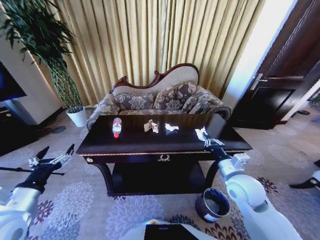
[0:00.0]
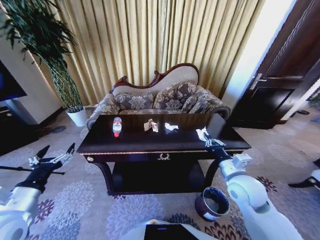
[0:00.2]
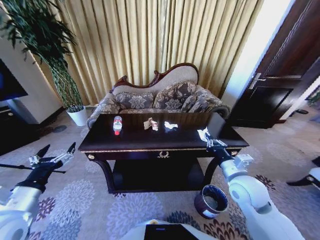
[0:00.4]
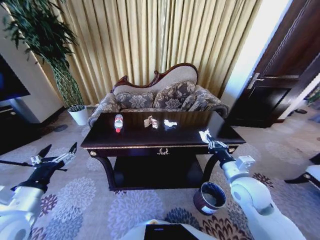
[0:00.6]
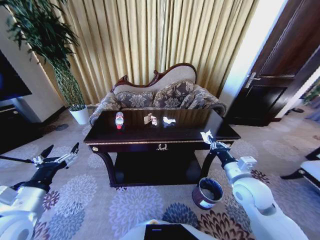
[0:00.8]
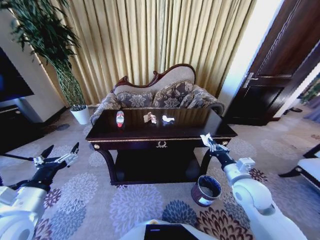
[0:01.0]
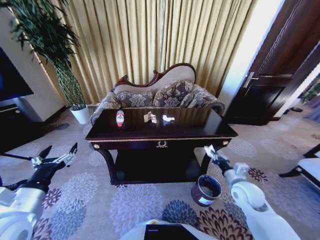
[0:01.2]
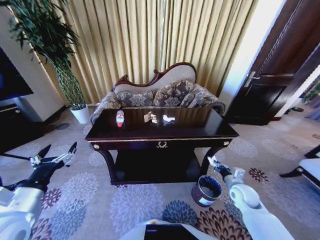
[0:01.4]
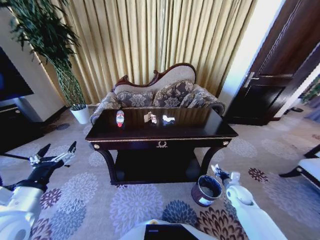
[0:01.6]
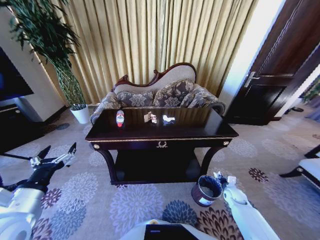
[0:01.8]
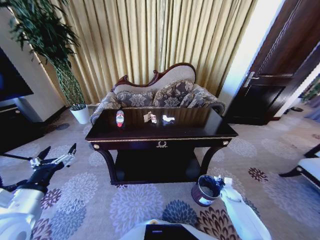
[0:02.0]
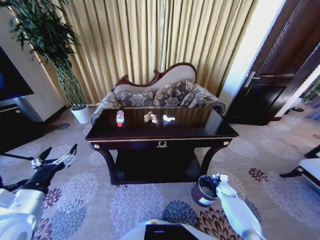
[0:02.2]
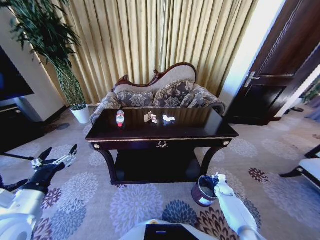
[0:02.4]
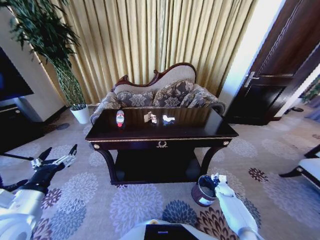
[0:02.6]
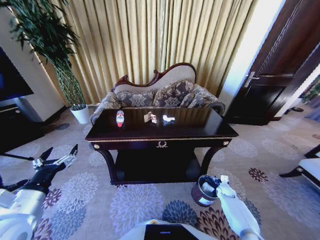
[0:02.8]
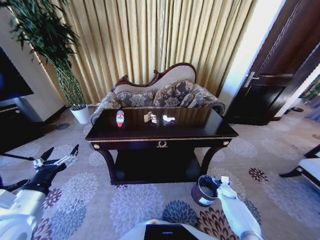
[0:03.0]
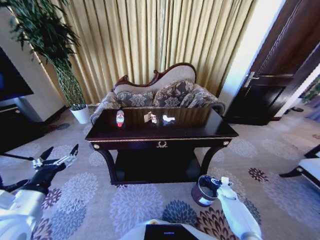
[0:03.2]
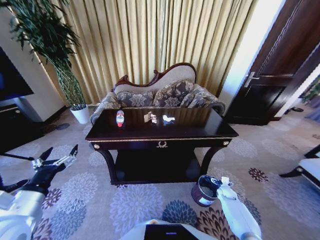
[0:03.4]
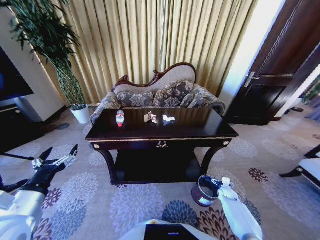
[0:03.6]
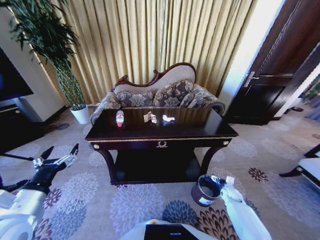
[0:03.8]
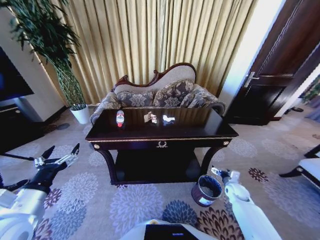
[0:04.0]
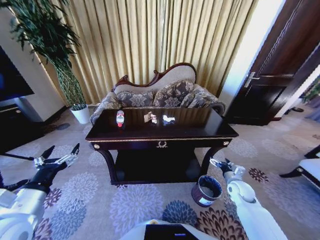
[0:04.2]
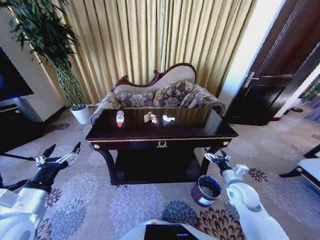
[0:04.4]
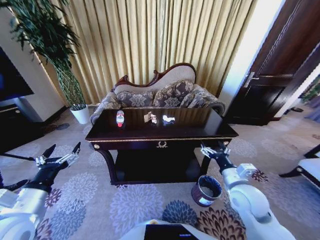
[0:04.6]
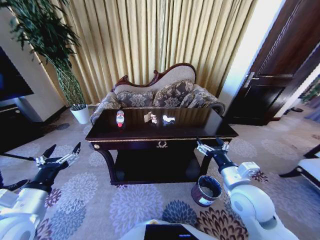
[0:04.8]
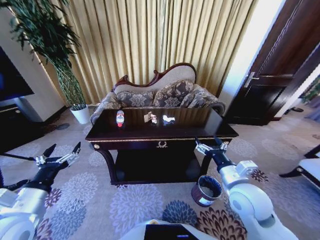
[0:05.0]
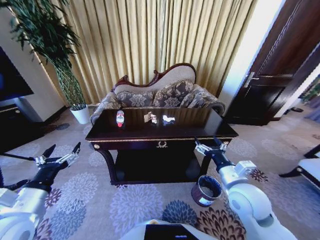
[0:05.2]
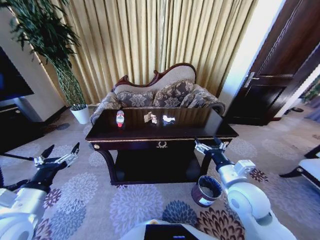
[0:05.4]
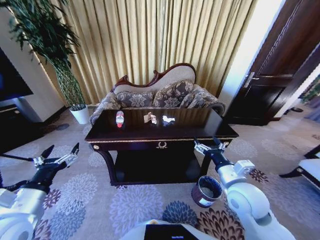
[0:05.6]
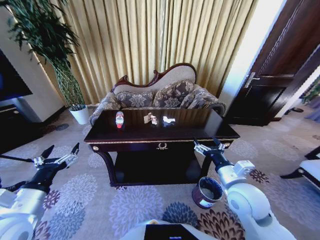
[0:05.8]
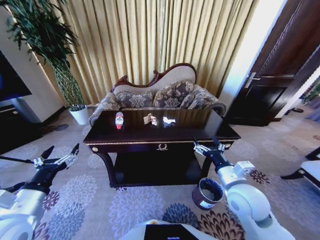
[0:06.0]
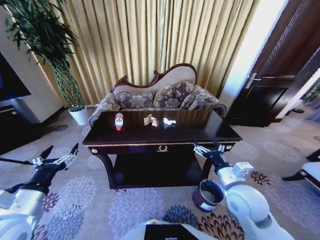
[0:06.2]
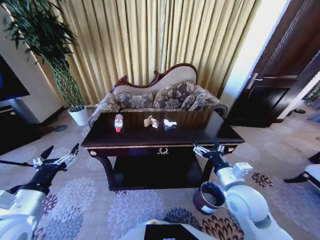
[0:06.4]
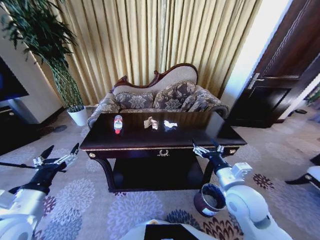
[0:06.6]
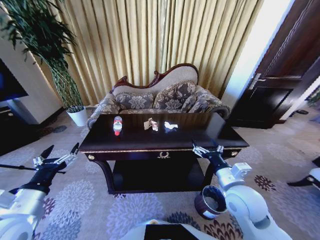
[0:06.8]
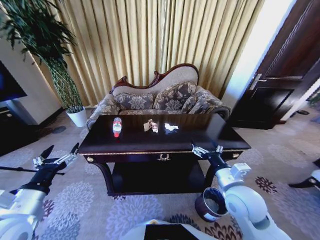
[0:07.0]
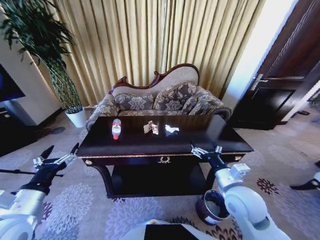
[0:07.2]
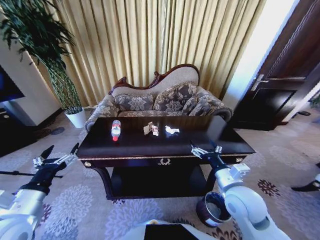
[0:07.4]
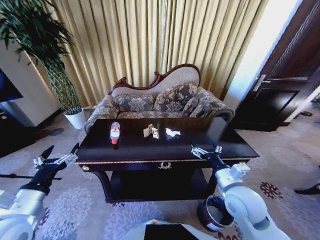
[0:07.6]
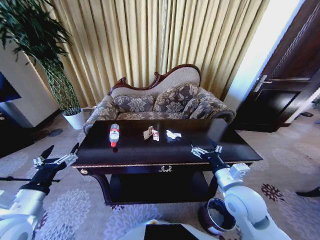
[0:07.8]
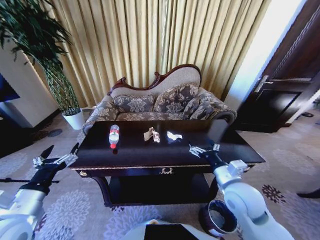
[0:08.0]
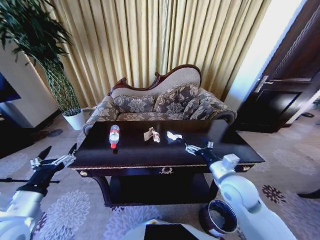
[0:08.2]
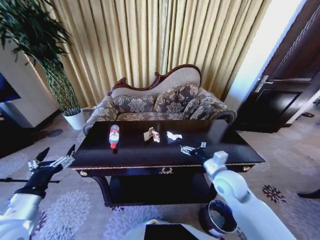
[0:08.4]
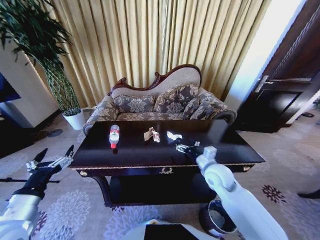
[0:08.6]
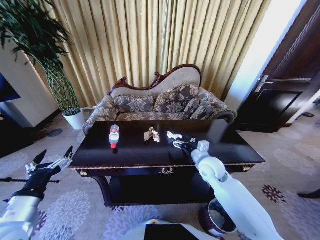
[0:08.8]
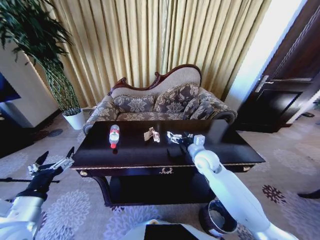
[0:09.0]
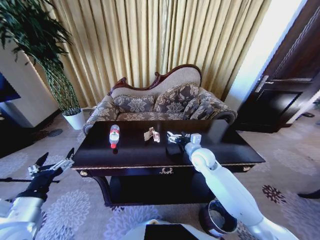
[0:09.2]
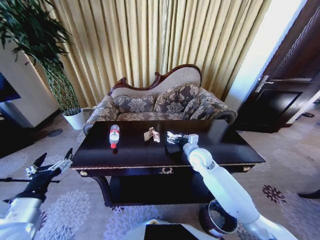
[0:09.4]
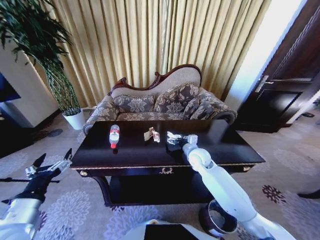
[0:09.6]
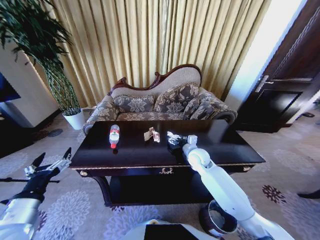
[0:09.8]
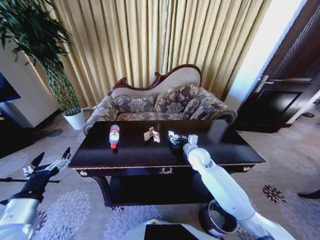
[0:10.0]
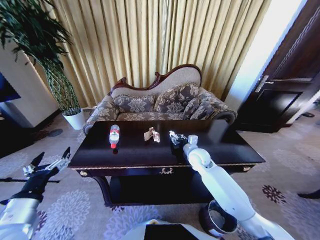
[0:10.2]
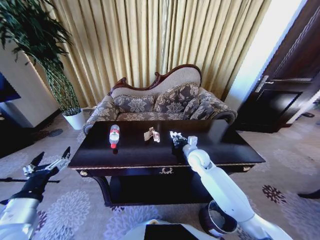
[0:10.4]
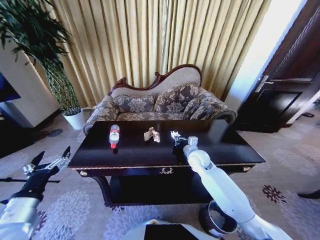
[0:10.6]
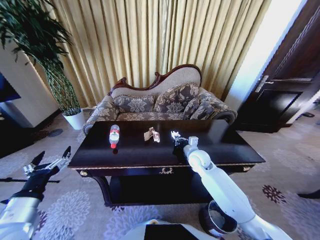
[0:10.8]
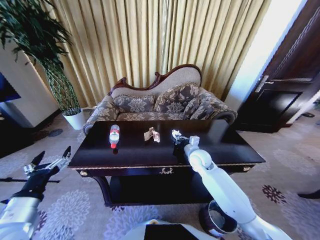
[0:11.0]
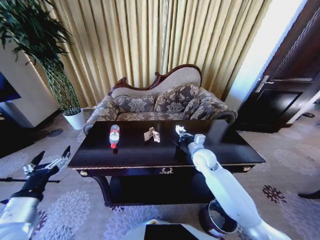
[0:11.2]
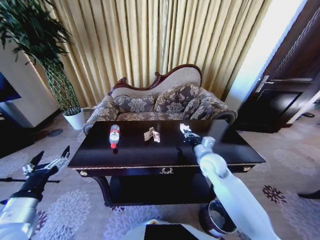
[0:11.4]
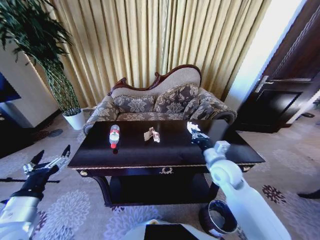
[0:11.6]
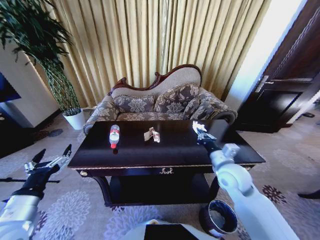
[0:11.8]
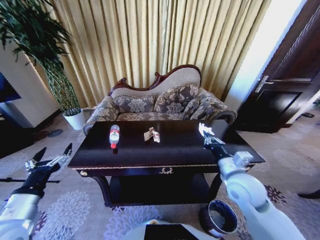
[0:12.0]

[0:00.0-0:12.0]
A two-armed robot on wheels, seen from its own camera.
Task of the whole recording: Move to the front of the table and place the trash on the table into the trash bin.
0:00.0 to 0:01.6: The right gripper shifts some 25 cm downward and to the right.
0:01.6 to 0:03.0: The right gripper moves downward, approximately 10 cm, and opens.
0:03.0 to 0:04.4: The right gripper heads upward and to the left, covering roughly 25 cm.
0:04.4 to 0:06.0: The right gripper moves upward and to the left, some 15 cm.
0:07.6 to 0:09.0: The right gripper is displaced forward by approximately 15 cm.
0:09.0 to 0:10.4: The right gripper moves about 5 cm, and closes its fingers.
0:10.4 to 0:12.0: The right gripper travels backward, upward and to the right by roughly 20 cm.

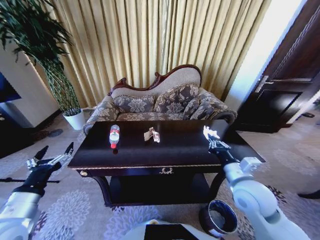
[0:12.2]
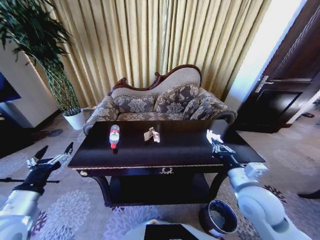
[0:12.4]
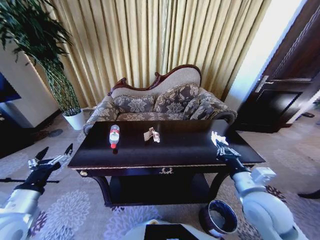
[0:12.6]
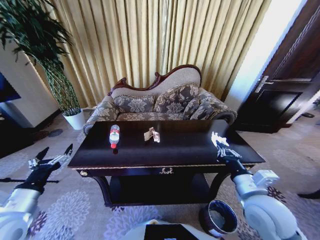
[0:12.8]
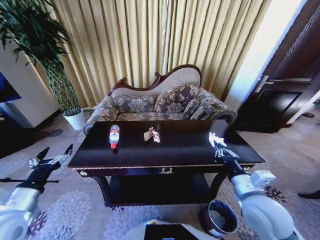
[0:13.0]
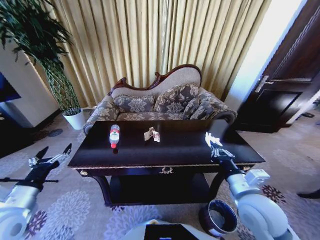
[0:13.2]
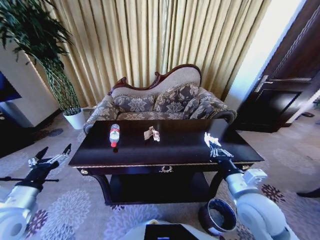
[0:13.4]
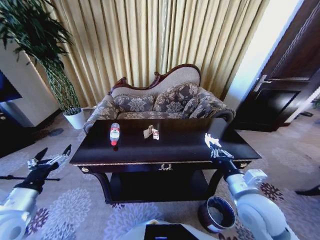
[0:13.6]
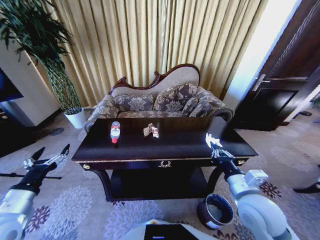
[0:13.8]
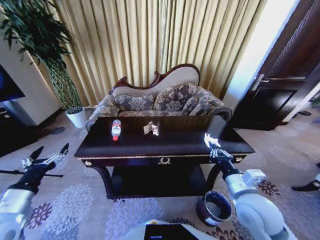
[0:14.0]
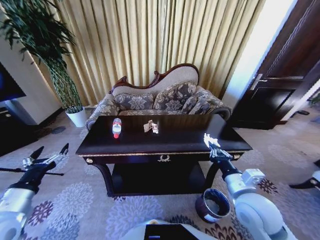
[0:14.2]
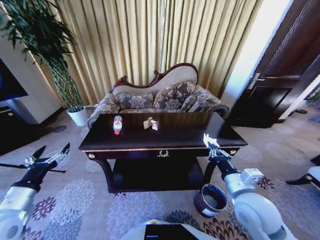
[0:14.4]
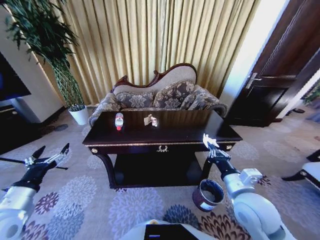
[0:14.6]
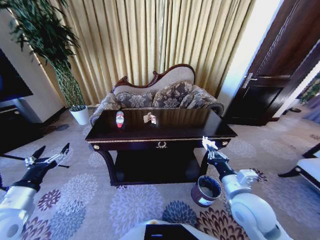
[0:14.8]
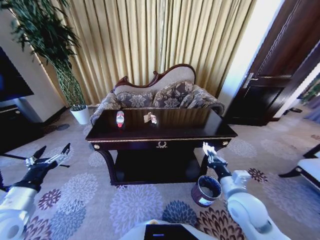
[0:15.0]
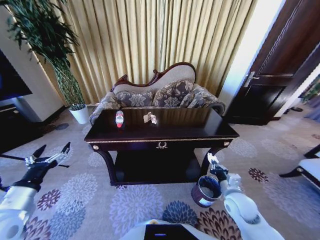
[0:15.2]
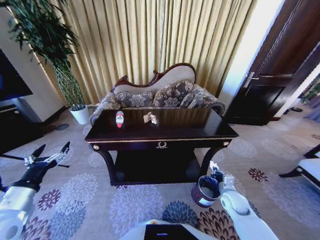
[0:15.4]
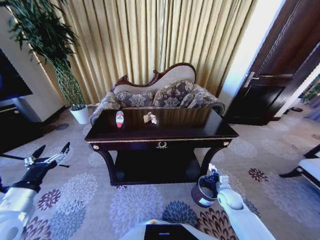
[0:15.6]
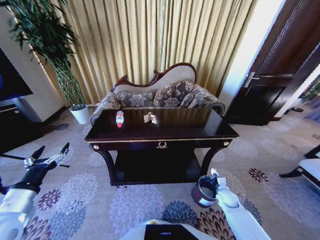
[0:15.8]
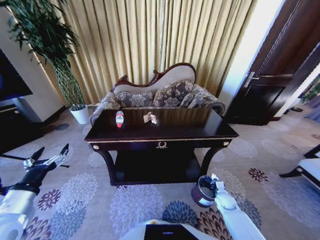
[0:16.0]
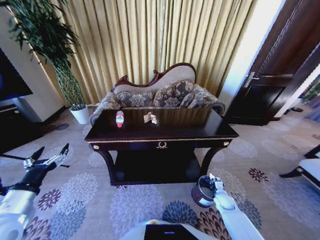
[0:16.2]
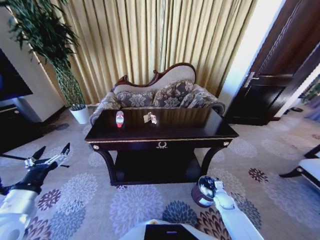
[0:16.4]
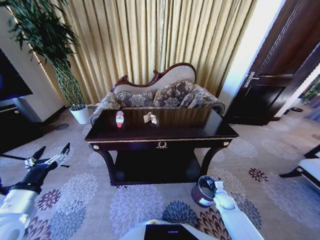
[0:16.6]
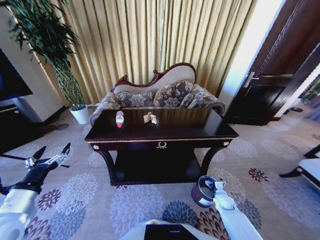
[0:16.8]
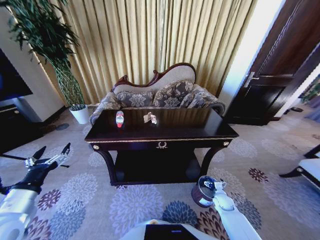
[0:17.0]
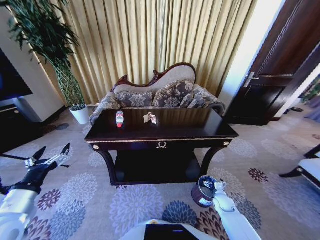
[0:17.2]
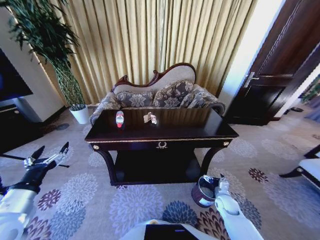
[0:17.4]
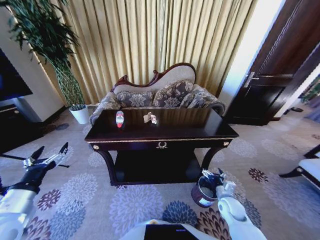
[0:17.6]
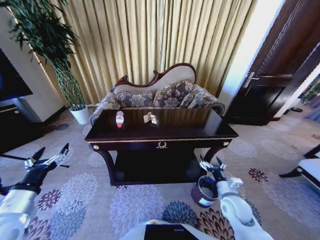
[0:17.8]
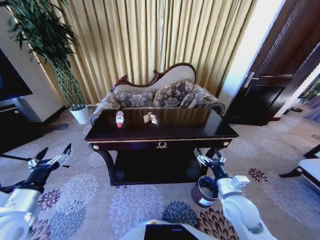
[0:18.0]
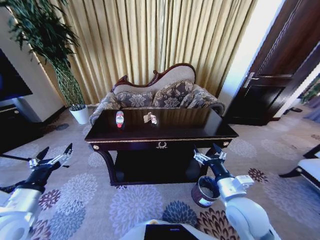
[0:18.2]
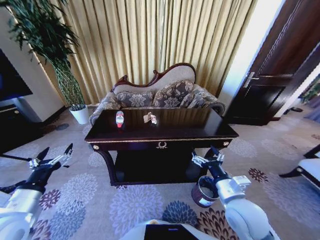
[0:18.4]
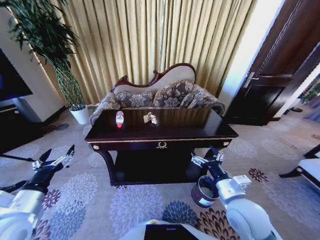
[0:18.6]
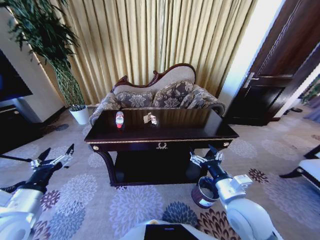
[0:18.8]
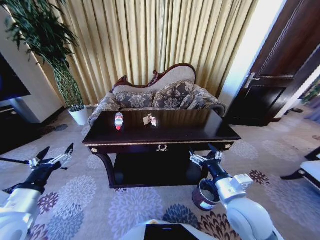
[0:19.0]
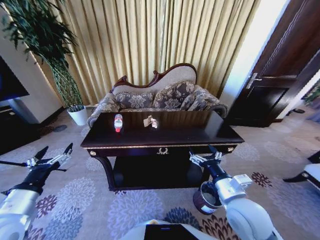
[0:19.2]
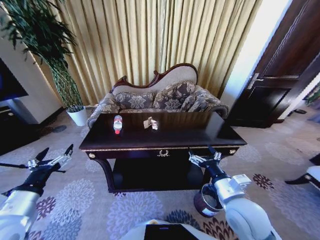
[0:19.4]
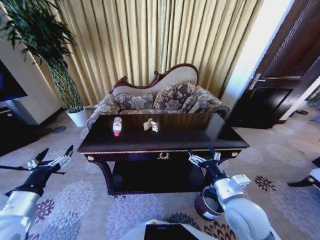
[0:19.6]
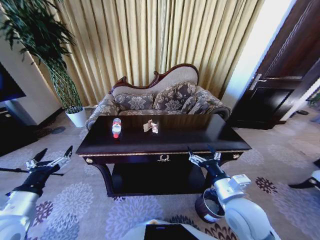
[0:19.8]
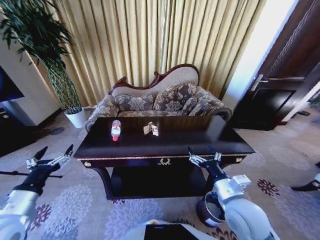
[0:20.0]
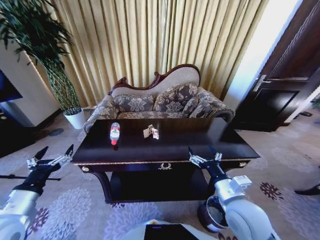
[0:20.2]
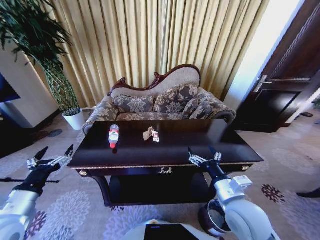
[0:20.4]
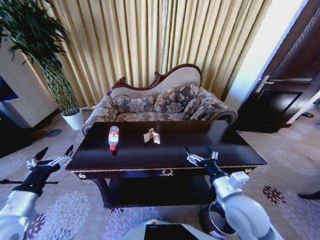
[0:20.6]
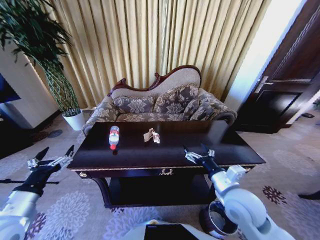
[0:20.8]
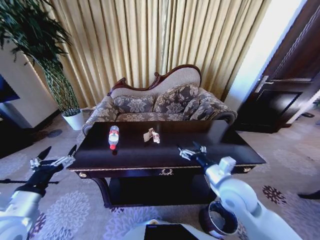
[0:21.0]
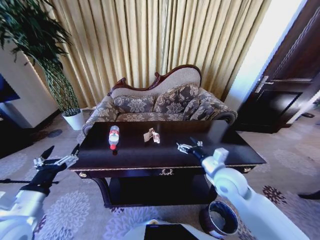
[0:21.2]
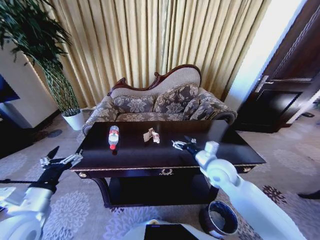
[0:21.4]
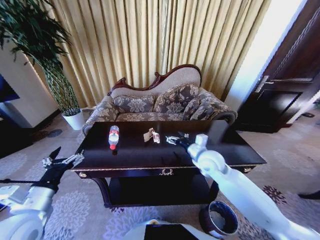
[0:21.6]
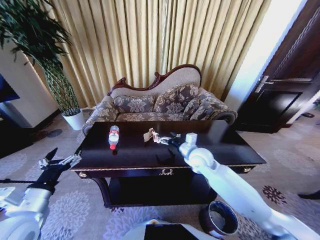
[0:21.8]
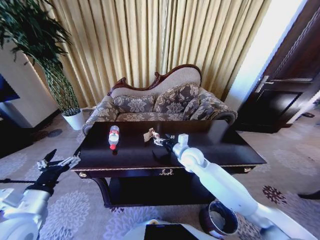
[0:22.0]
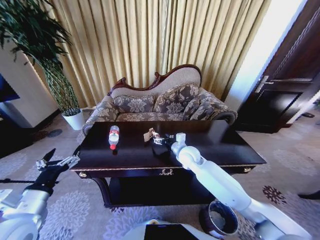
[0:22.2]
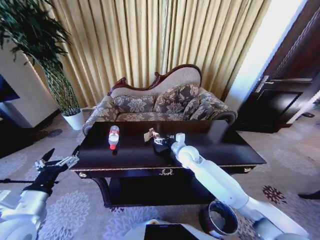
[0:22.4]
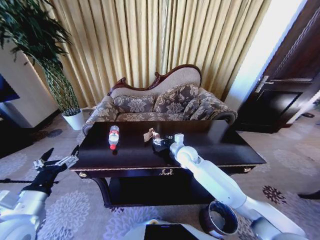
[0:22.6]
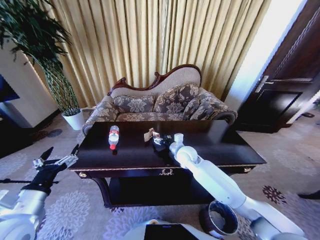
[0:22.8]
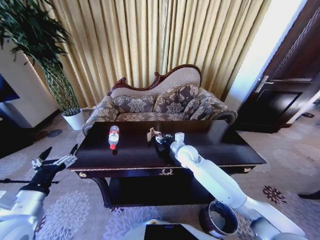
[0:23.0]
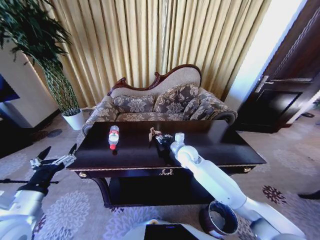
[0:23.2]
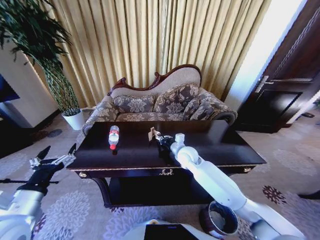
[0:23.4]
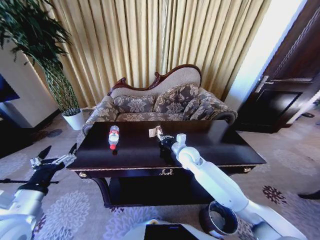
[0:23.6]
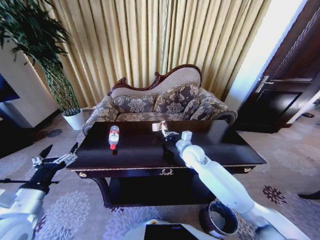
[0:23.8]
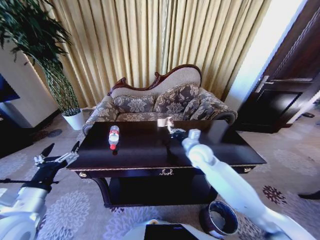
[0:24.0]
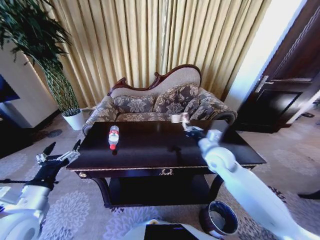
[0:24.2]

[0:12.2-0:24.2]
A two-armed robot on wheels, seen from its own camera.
Task of the whole recording: Move to the front of the table and place the trash on the table into the trash bin.
0:13.8 to 0:15.2: The right gripper shifts roughly 15 cm downward.
0:15.2 to 0:16.6: The right gripper moves downward, approximately 20 cm, and opens up.
0:16.6 to 0:18.2: The right gripper is displaced upward and to the left by some 30 cm, and opens its fingers.
0:19.8 to 0:21.2: The right gripper travels forward by some 10 cm.
0:21.2 to 0:22.6: The right gripper travels forward and to the left by about 15 cm.
0:22.6 to 0:24.2: The right gripper shifts about 15 cm to the right, upward and backward, and closes up.
